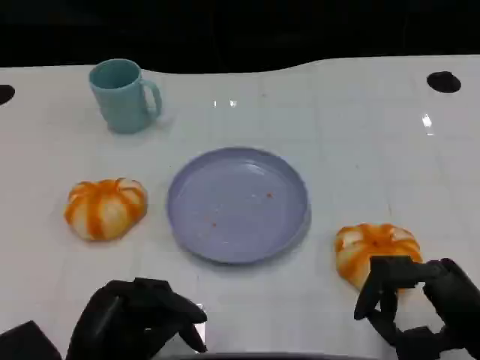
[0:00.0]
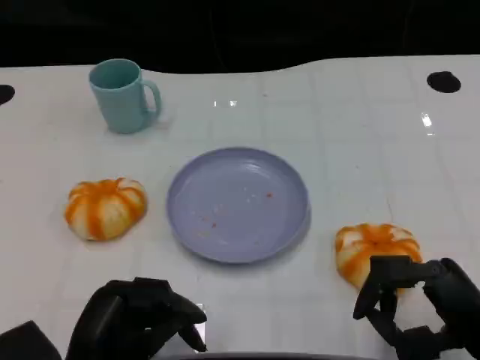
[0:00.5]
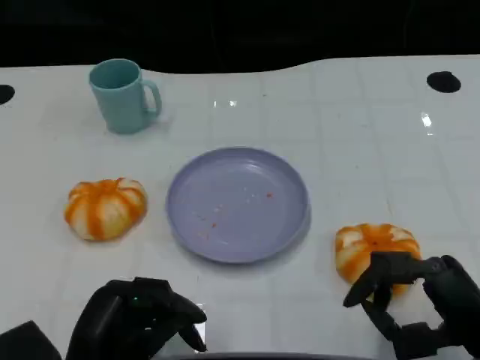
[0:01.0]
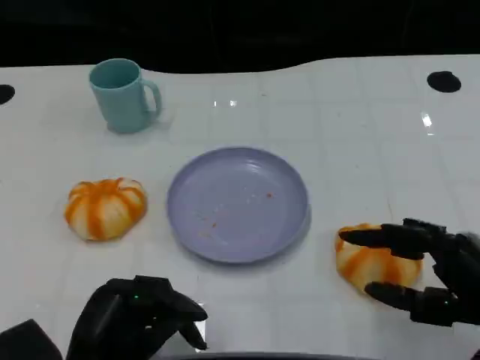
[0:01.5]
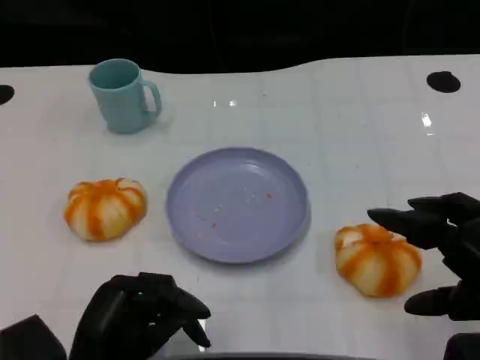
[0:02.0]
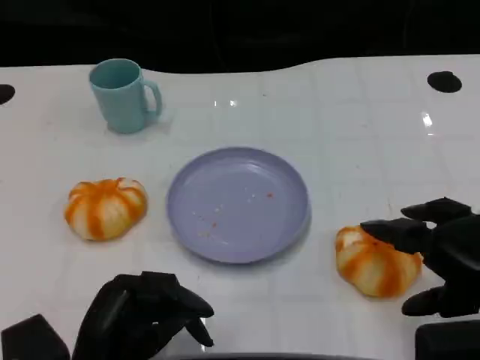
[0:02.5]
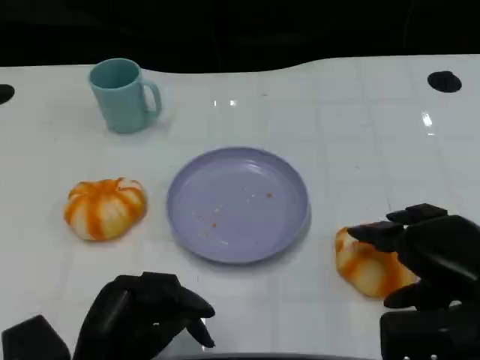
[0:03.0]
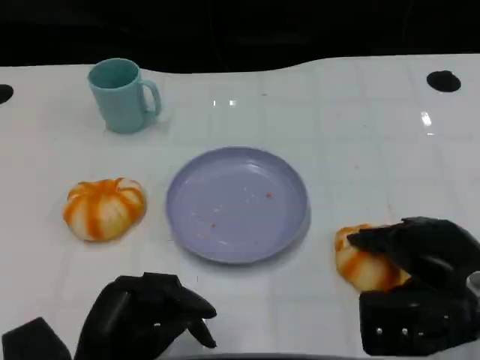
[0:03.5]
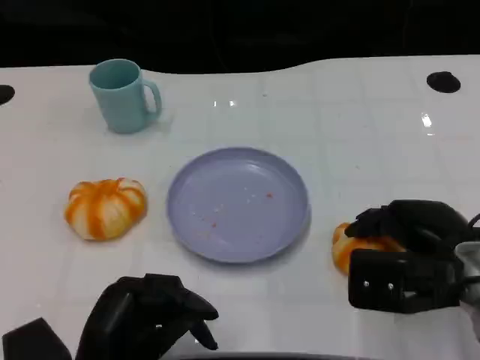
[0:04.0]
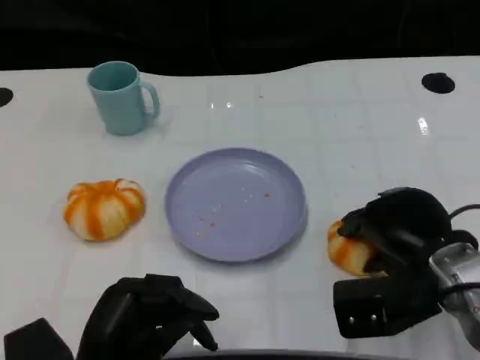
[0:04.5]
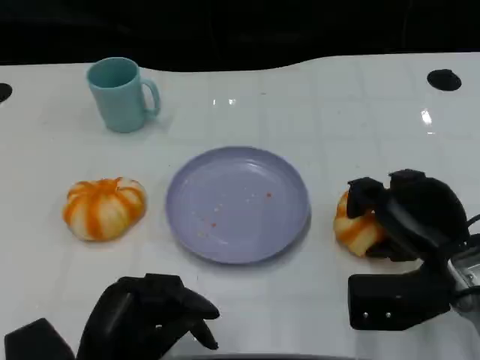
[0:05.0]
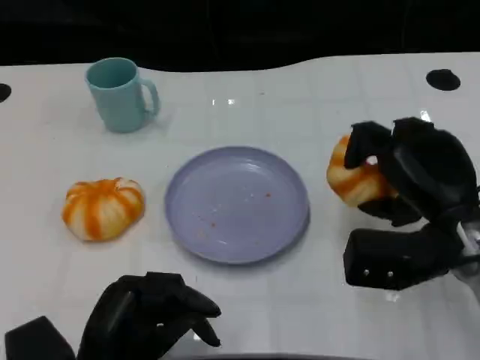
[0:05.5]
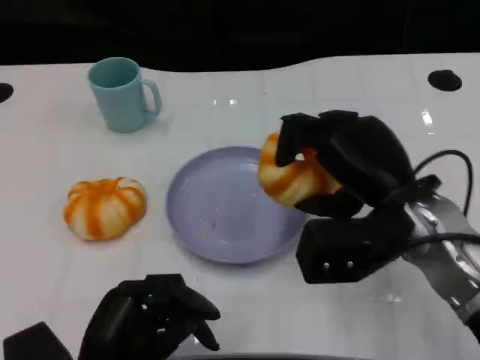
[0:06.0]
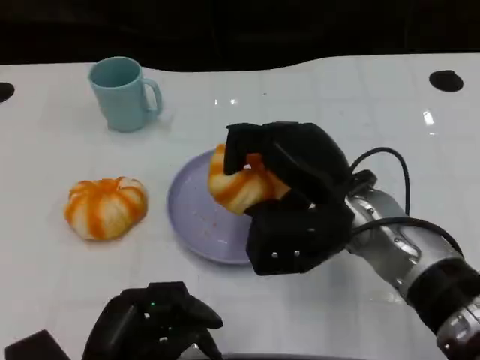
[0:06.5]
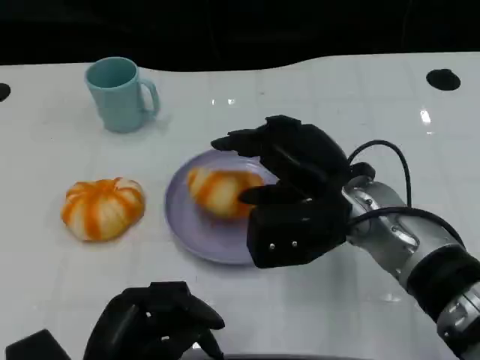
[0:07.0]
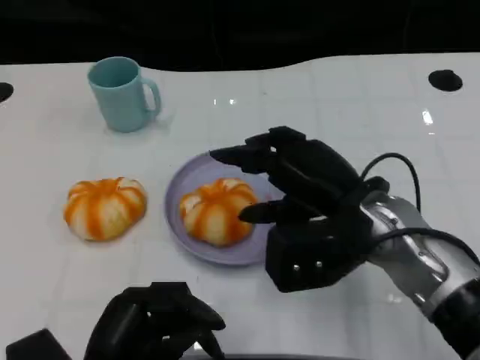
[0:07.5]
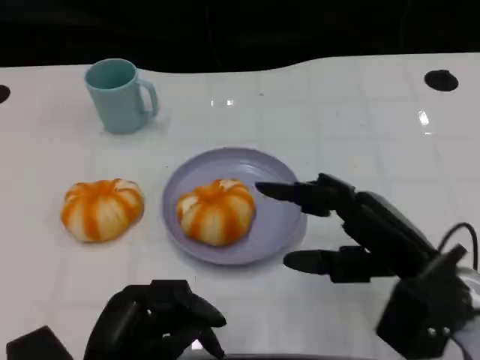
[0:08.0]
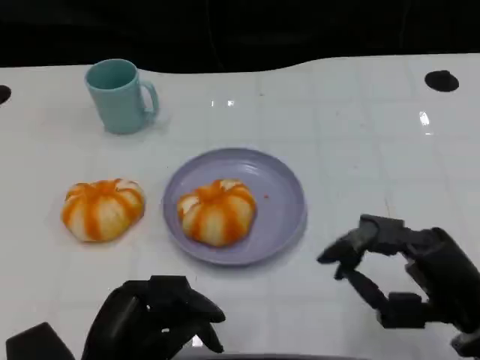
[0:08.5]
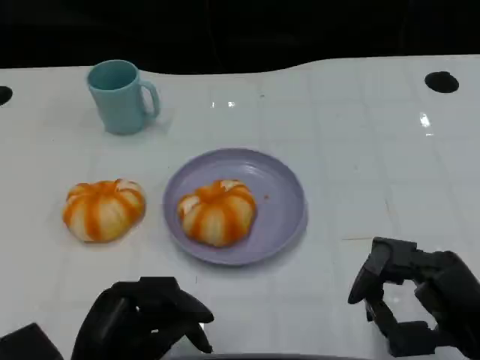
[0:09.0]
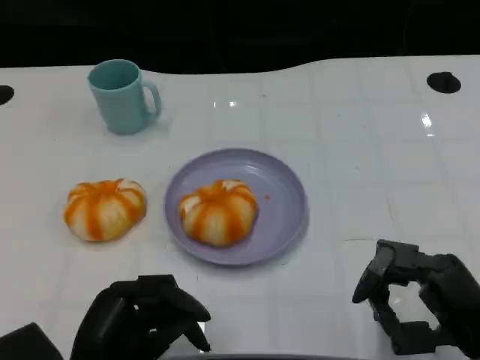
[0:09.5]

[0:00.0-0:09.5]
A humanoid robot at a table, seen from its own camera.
Task of the whole recording: Grasp the bread from the table and place it into the plate.
0.0 to 2.0 s: The right hand shifts about 10 cm upward.
2.0 to 4.0 s: The right hand heads forward and to the left, covering approximately 10 cm.
5.5 to 7.5 s: The right hand goes approximately 10 cm to the left.
7.5 to 9.5 s: The right hand is displaced to the right, backward and downward by approximately 15 cm.

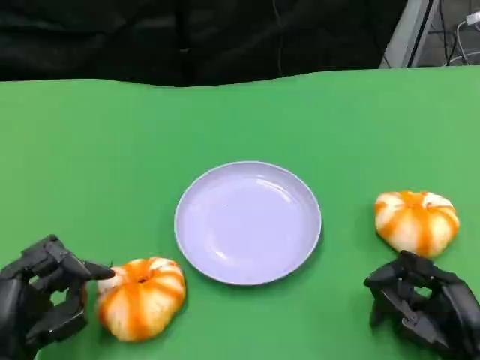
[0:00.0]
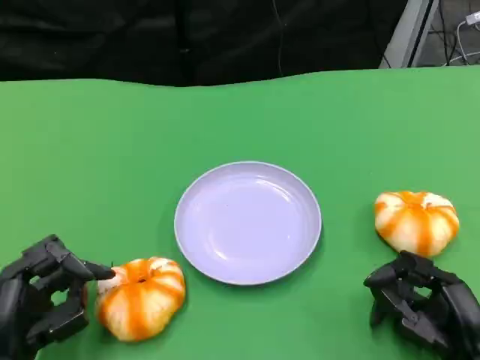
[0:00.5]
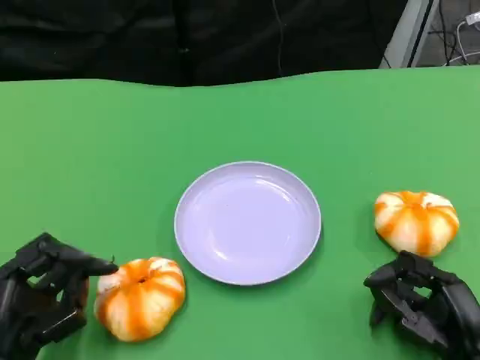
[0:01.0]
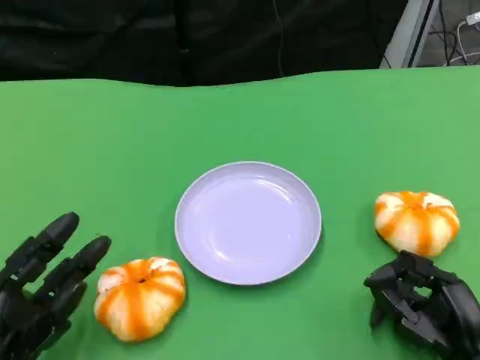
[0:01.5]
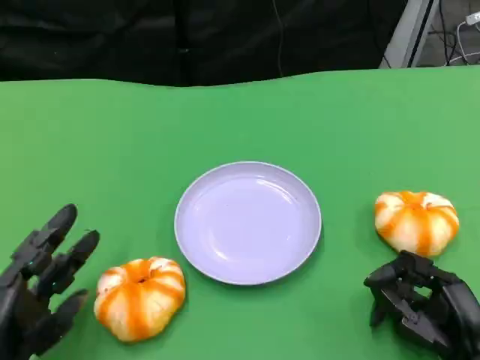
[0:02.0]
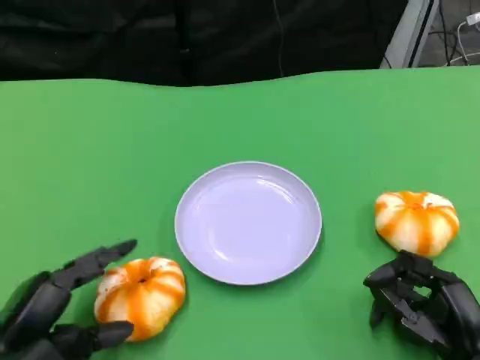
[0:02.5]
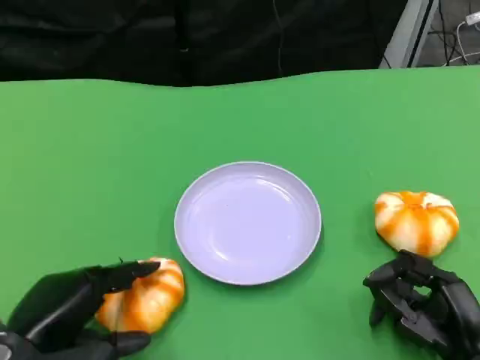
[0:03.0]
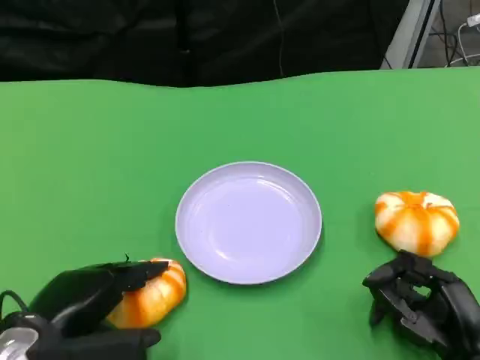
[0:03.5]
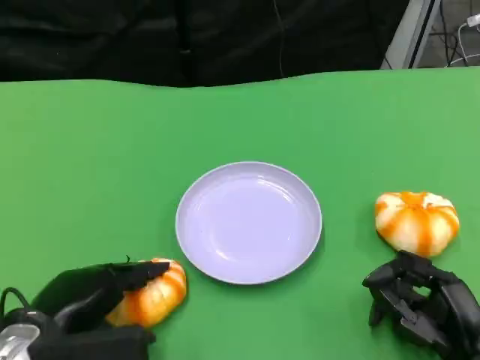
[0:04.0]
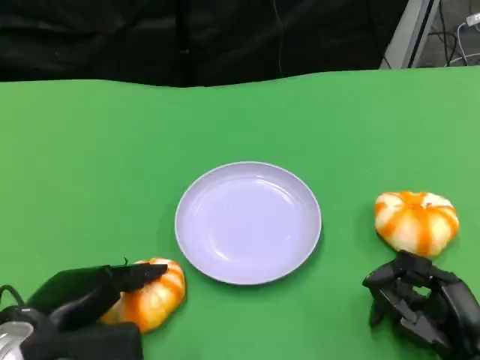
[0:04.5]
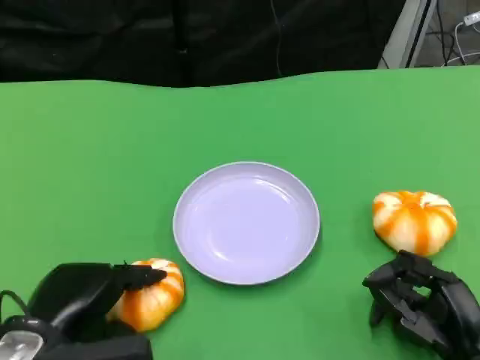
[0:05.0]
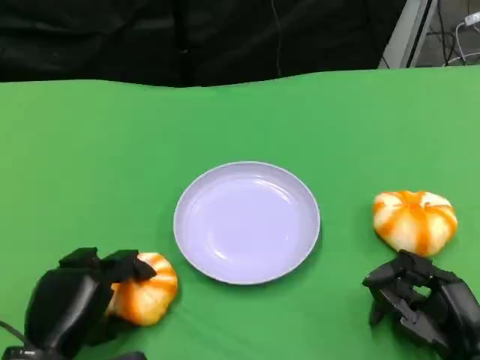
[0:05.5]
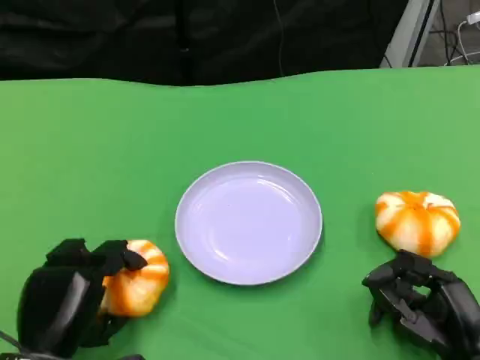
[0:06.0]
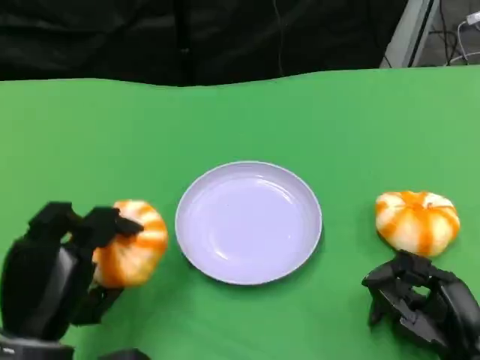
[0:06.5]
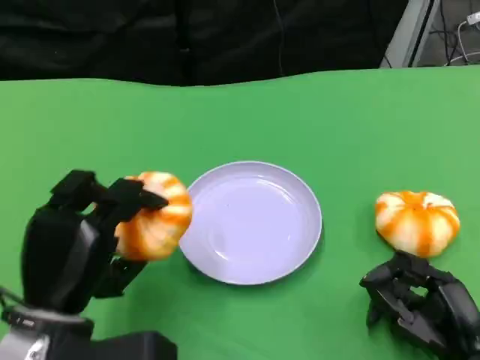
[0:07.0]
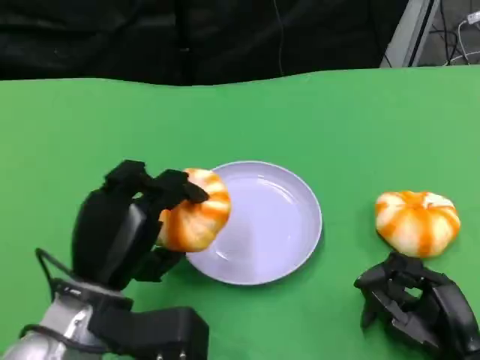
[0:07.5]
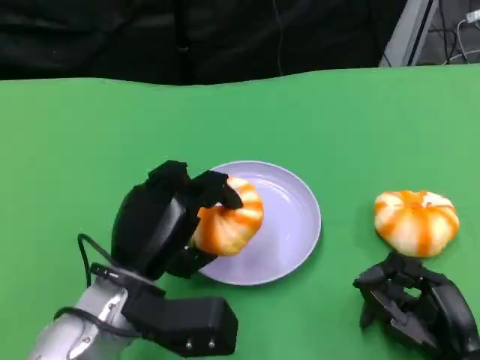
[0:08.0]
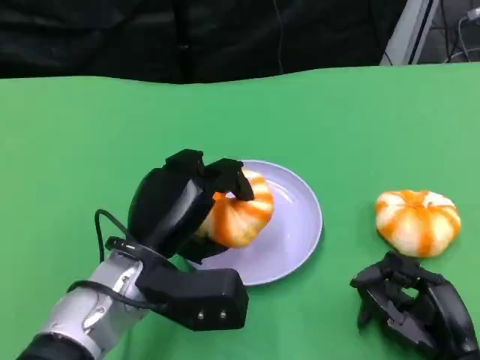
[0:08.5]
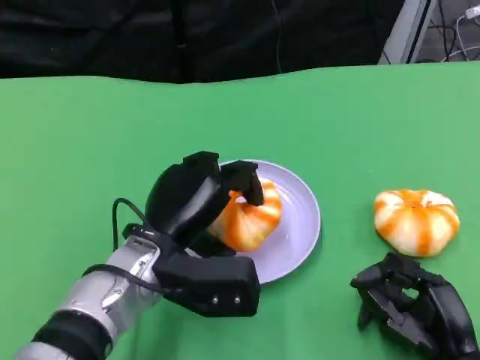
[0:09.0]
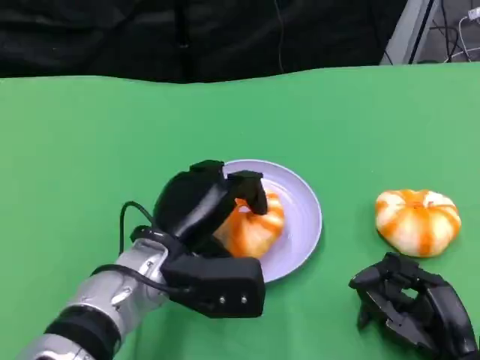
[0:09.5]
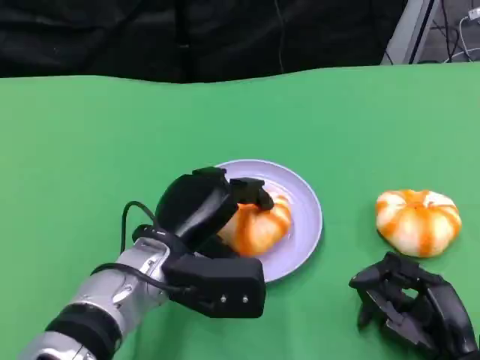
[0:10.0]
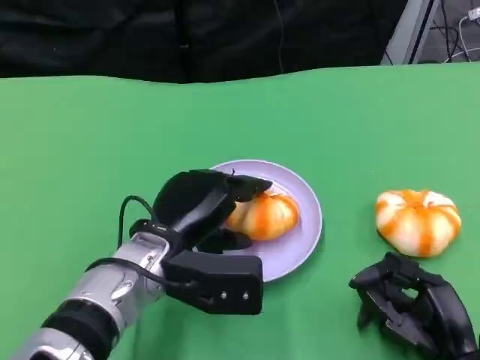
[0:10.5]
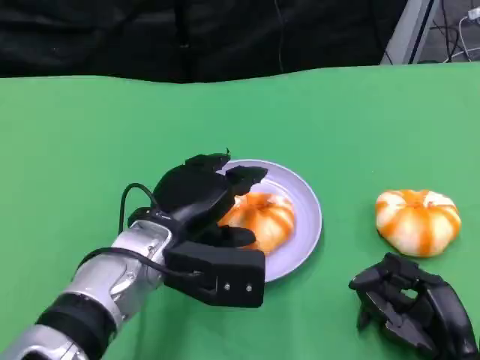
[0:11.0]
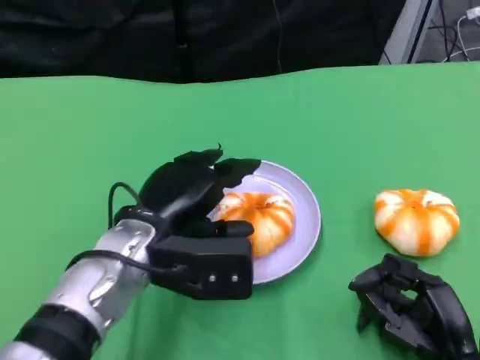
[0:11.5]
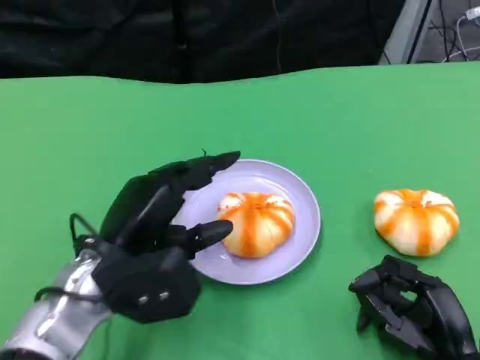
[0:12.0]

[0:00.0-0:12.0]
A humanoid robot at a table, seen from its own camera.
Task of the whole recording: Grasp the bread from the table and place it into the plate.
0.0 to 2.0 s: The hands move only a little.
2.0 to 4.0 s: The left hand heads upward, covering about 5 cm.
4.0 to 6.0 s: The left hand shifts by some 5 cm.
6.0 to 8.0 s: The left hand is displaced to the right, forward and upward by approximately 10 cm.
10.0 to 12.0 s: The left hand shifts some 5 cm to the left.

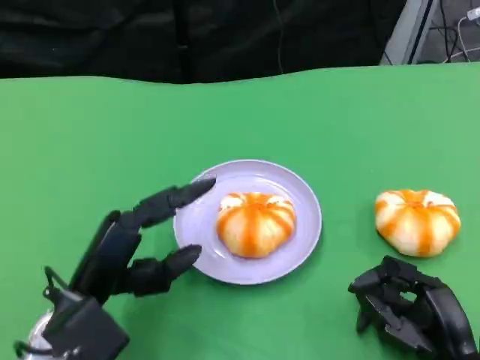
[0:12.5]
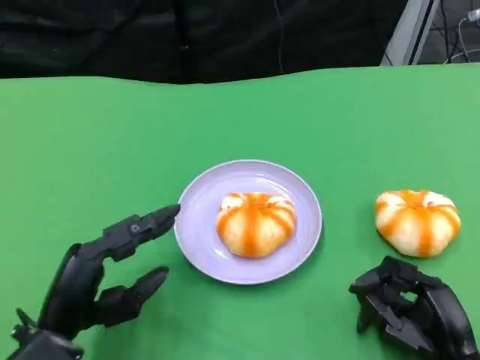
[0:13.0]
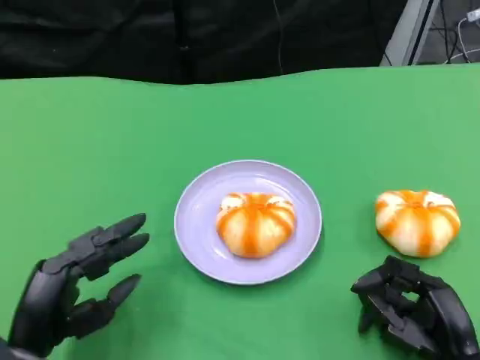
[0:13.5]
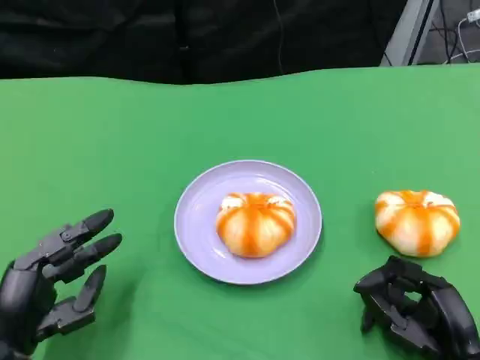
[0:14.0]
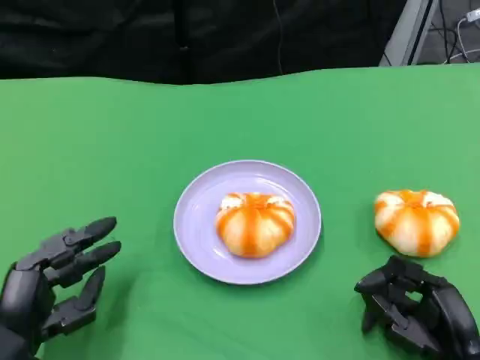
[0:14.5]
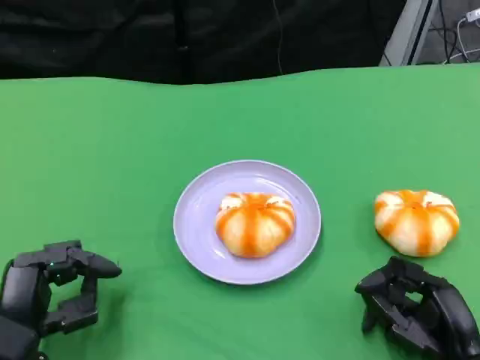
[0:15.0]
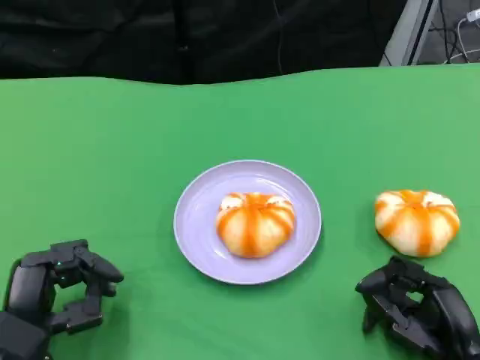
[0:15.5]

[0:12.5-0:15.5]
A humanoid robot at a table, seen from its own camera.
Task of the whole recording: Grasp the bread from the table and place it into the plate.
12.5 to 14.0 s: The left hand goes approximately 5 cm to the left.
14.0 to 15.5 s: There are only small adjustments of the hands.

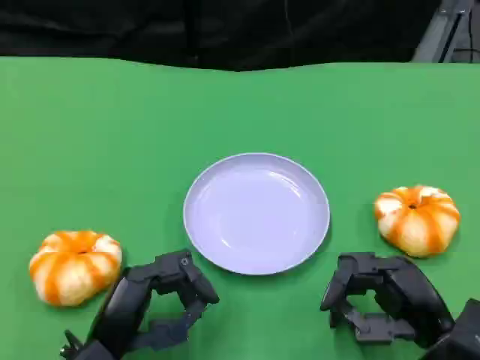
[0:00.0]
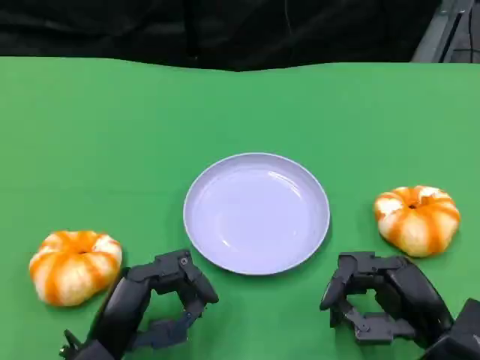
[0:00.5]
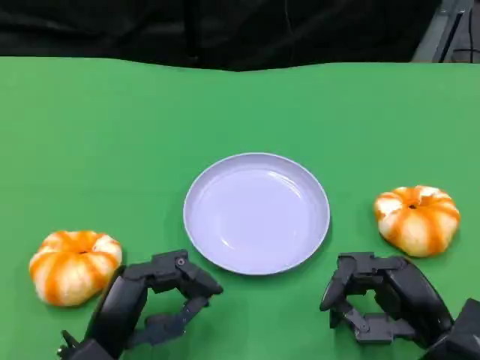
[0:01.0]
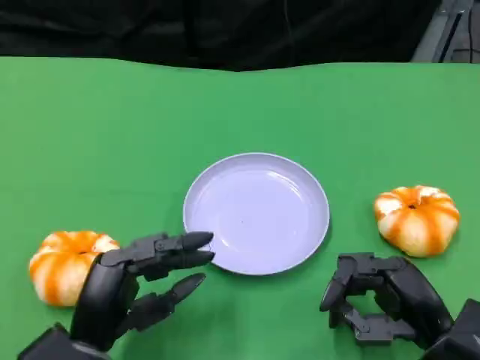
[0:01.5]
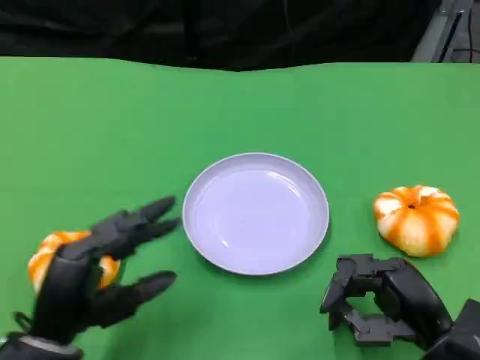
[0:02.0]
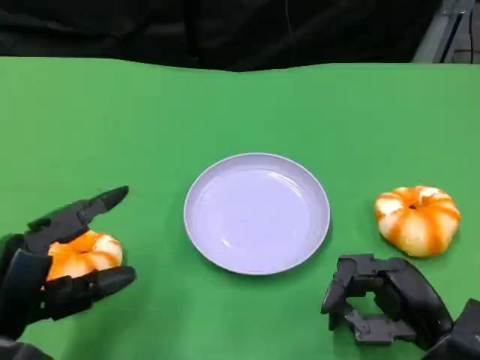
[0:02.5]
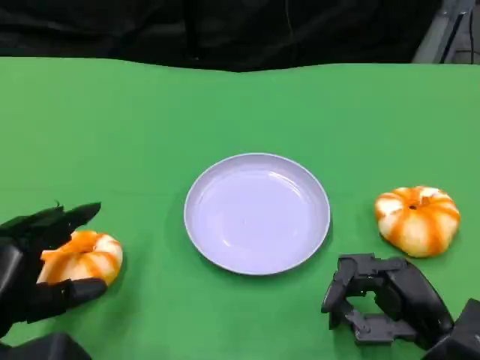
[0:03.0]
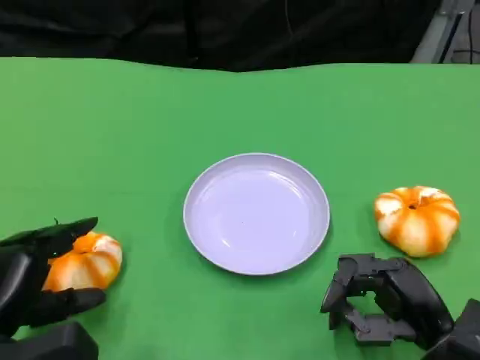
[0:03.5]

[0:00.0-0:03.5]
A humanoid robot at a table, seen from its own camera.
Task of the whole recording: Grasp the bread from the table and place it into the plate.
0.0 to 2.0 s: The left hand moves some 5 cm.
2.0 to 3.5 s: The left hand ends up approximately 5 cm from where it was.
